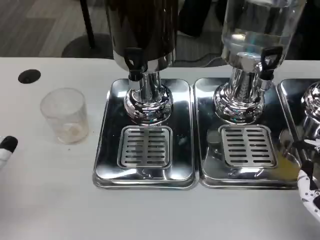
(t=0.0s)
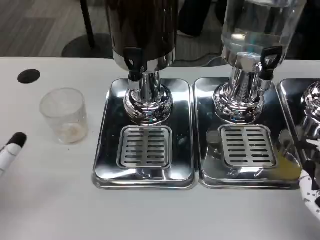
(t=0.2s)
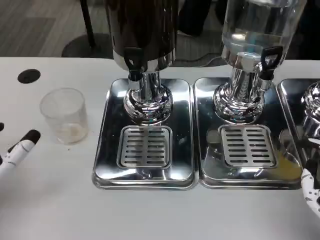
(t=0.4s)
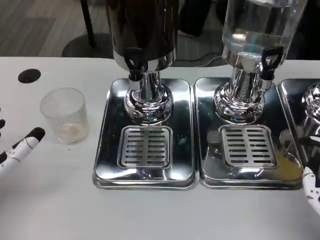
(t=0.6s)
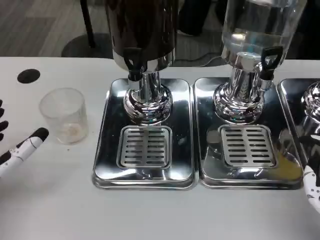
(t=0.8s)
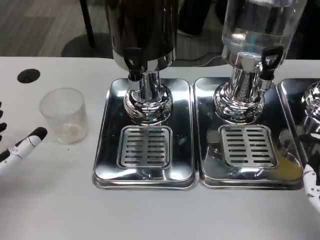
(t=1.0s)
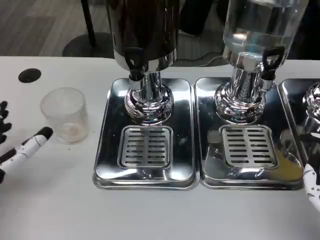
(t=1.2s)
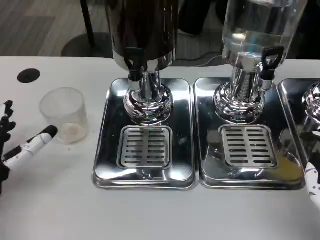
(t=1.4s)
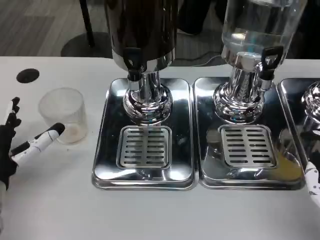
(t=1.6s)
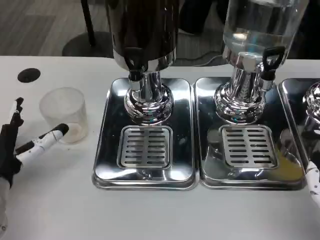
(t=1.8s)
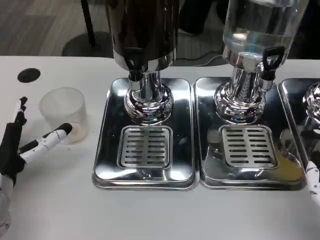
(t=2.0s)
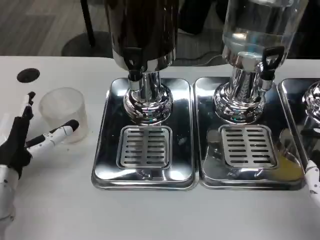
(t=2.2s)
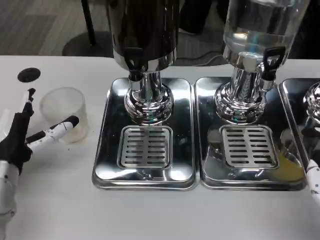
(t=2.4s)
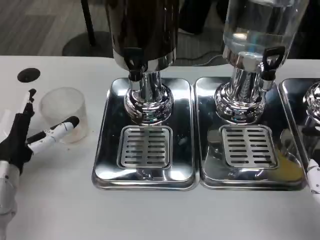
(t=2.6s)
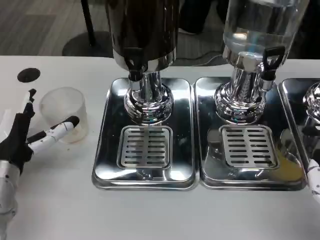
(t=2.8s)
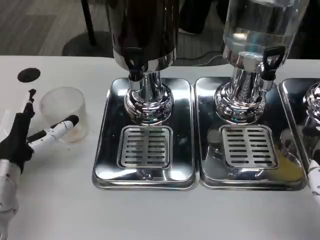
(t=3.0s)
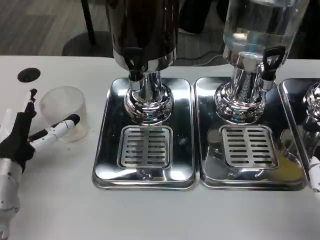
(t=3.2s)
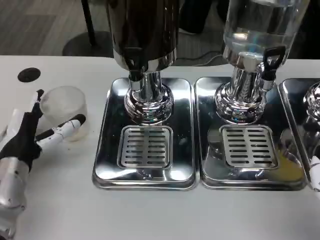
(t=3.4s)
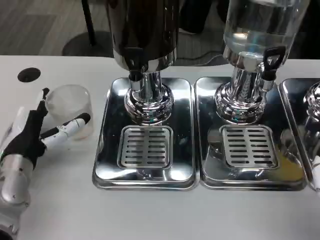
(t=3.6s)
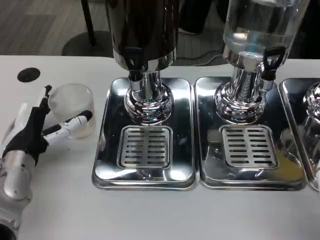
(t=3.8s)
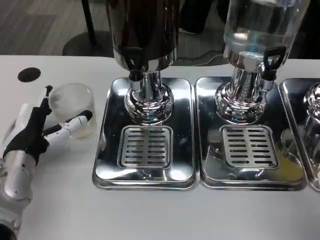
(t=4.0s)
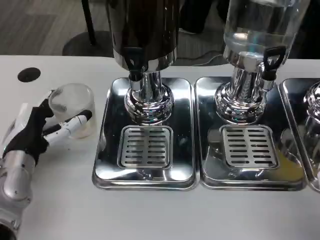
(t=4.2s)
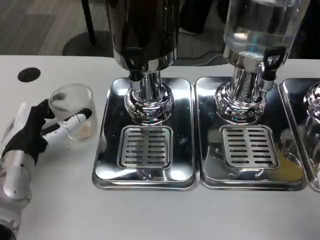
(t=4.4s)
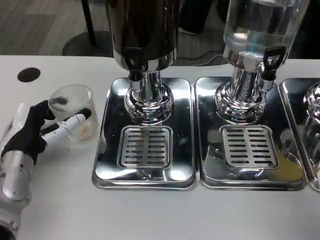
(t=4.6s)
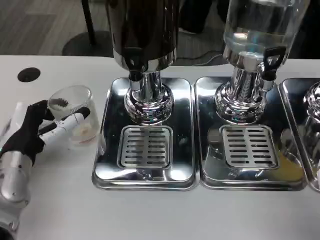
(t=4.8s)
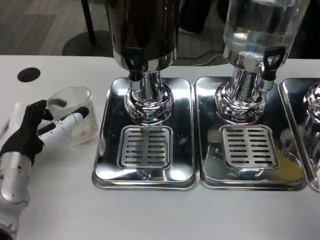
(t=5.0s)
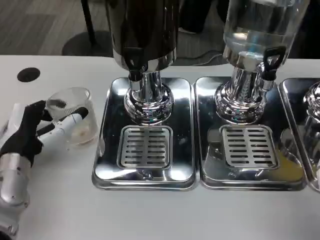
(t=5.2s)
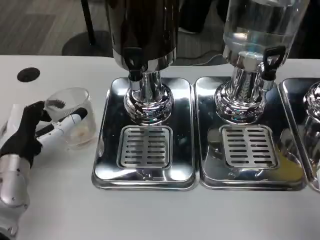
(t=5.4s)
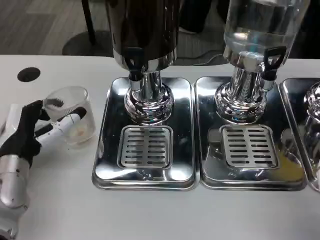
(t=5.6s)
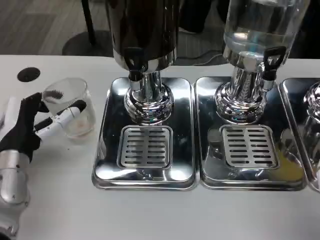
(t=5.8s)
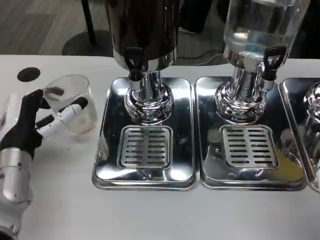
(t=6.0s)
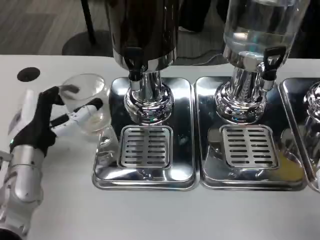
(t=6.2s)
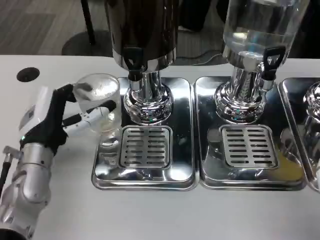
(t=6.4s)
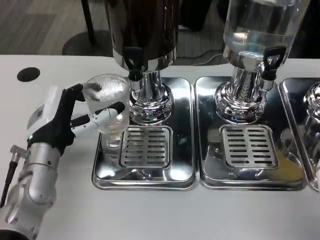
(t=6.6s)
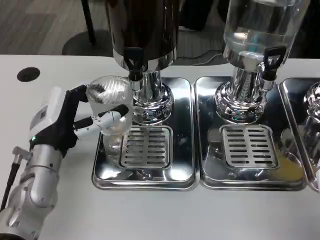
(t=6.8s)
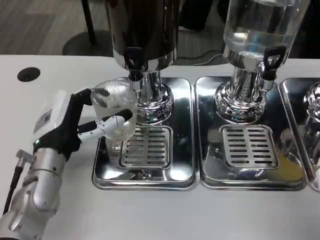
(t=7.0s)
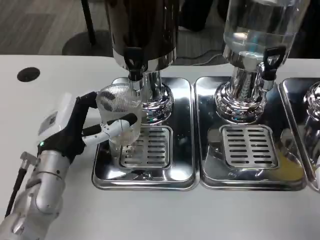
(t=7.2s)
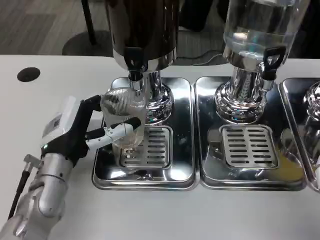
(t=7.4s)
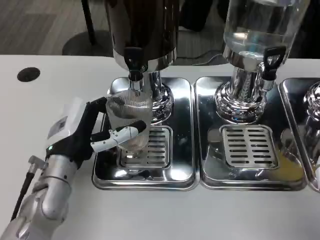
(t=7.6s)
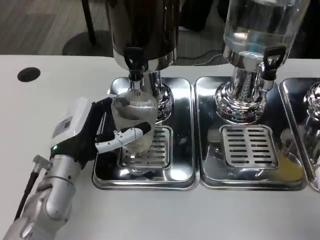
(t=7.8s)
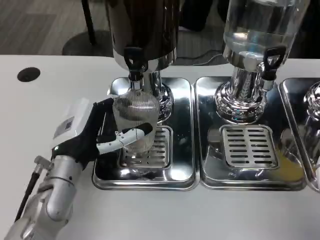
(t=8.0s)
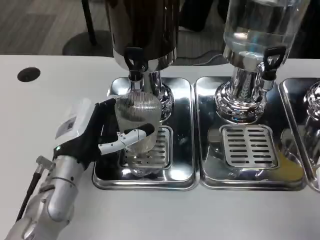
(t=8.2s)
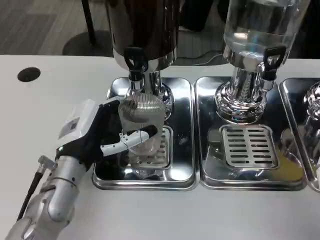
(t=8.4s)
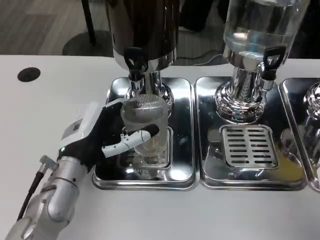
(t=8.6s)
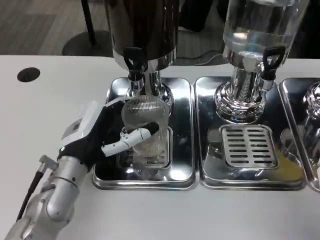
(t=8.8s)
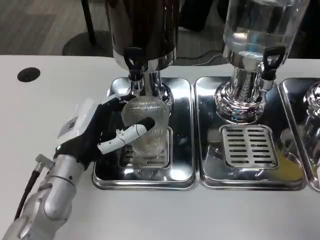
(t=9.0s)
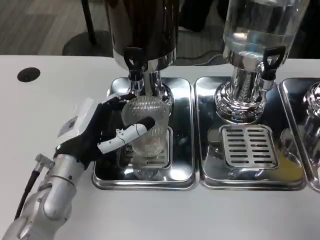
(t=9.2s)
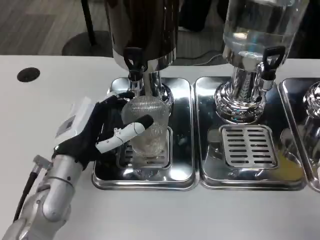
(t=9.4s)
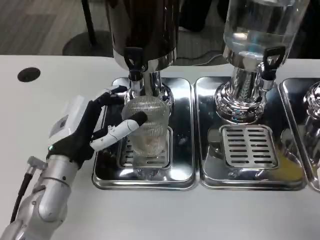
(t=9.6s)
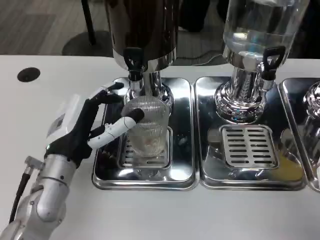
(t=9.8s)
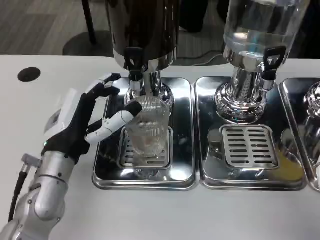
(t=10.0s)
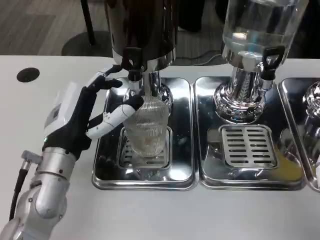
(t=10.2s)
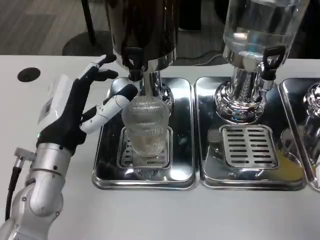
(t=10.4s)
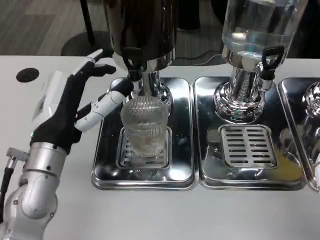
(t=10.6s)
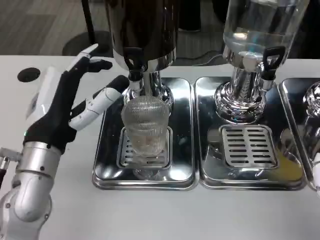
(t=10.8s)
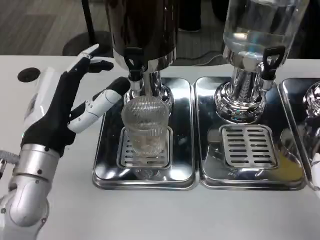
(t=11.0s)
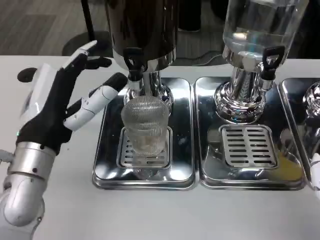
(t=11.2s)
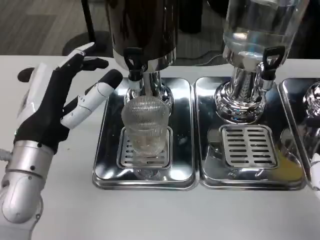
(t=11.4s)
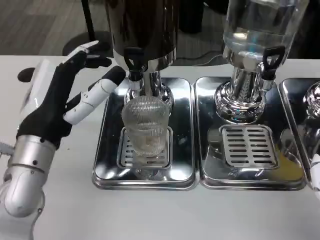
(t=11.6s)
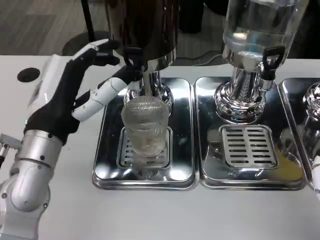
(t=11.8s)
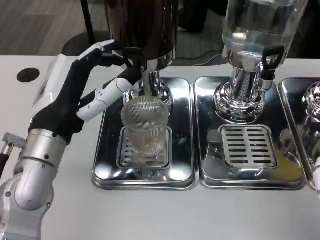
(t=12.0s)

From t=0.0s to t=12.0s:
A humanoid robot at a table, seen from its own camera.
Task of the whole recording: Grasp the cup under the faucet to collect the drink, then remove the cup.
From t=0.0s to t=1.6s: The left hand moves forward, approximately 5 cm.
From t=1.6s to t=6.0s: The hands stay close to where they were, moving slightly.
From t=6.0s to t=7.6s: The left hand heads to the right, covering roughly 5 cm.
From t=7.6s to t=10.4s: The hands move only a little.
From t=10.4s to t=12.0s: There are only small adjustments of the hands.

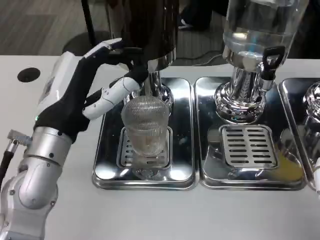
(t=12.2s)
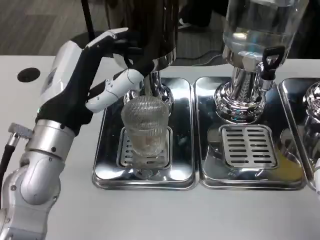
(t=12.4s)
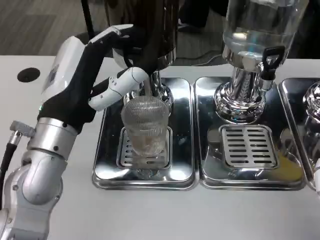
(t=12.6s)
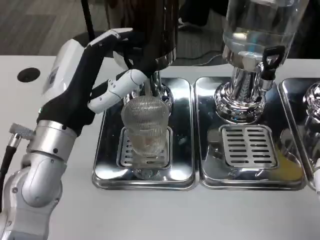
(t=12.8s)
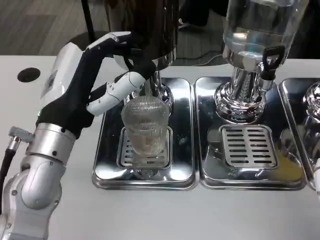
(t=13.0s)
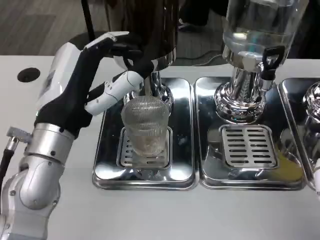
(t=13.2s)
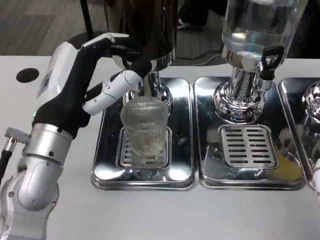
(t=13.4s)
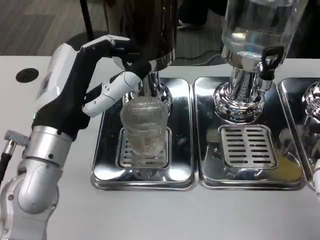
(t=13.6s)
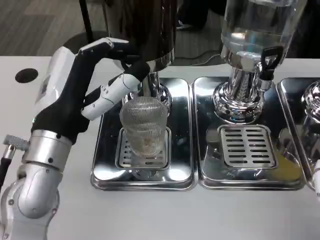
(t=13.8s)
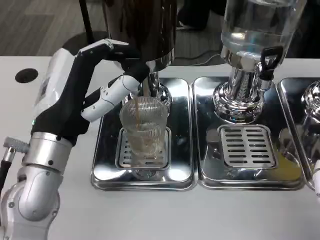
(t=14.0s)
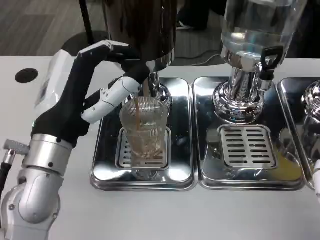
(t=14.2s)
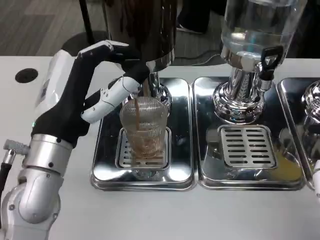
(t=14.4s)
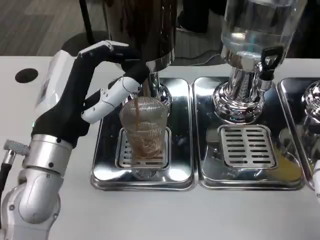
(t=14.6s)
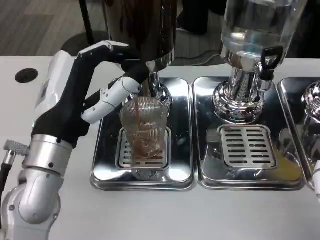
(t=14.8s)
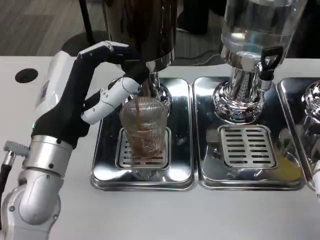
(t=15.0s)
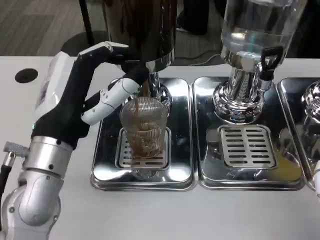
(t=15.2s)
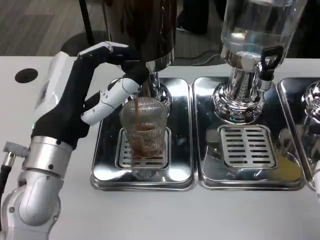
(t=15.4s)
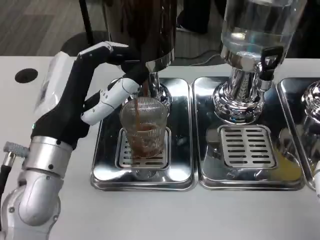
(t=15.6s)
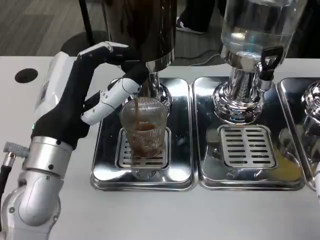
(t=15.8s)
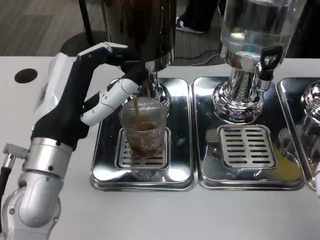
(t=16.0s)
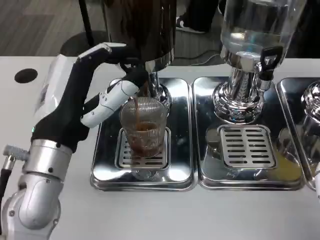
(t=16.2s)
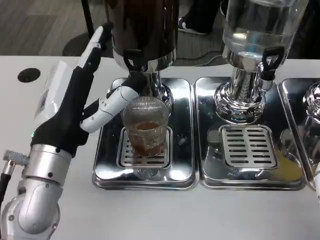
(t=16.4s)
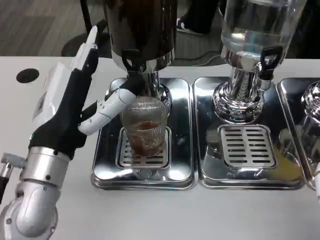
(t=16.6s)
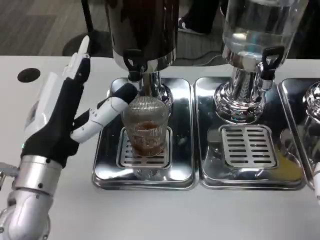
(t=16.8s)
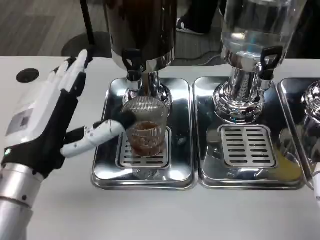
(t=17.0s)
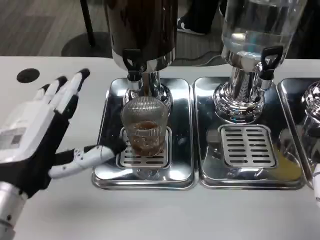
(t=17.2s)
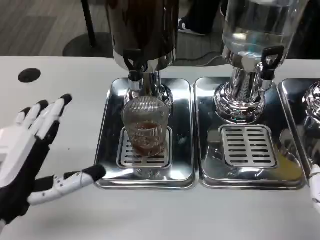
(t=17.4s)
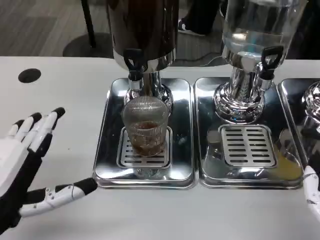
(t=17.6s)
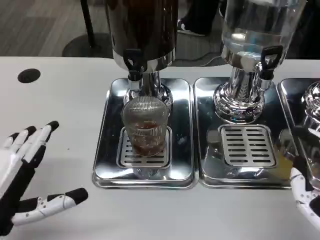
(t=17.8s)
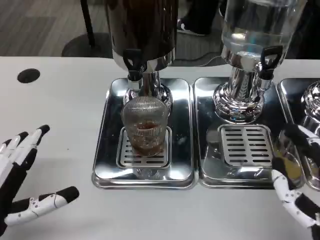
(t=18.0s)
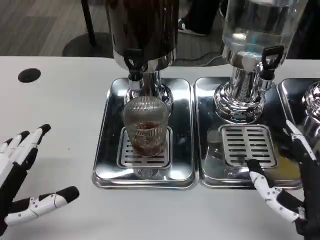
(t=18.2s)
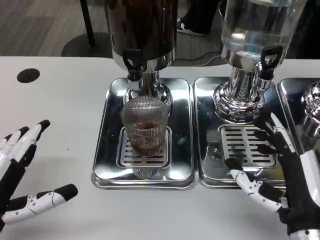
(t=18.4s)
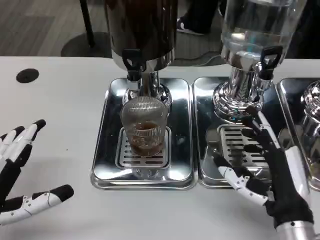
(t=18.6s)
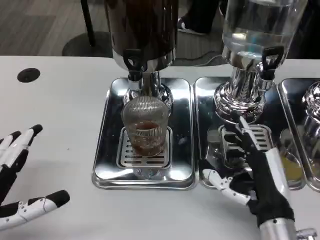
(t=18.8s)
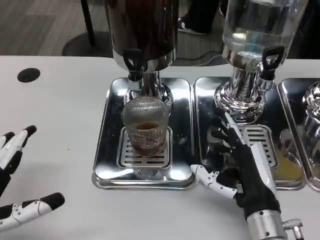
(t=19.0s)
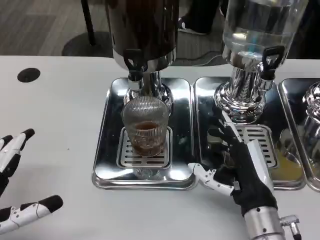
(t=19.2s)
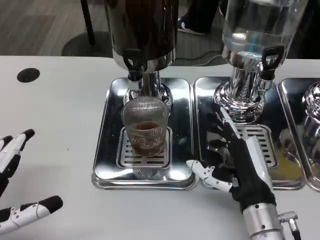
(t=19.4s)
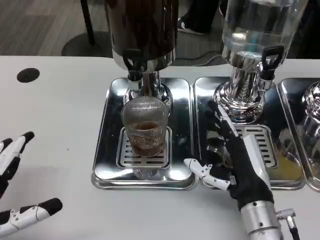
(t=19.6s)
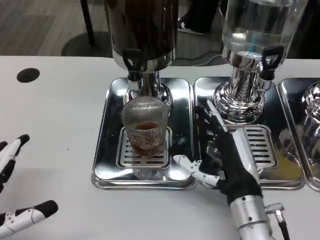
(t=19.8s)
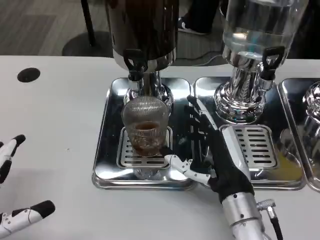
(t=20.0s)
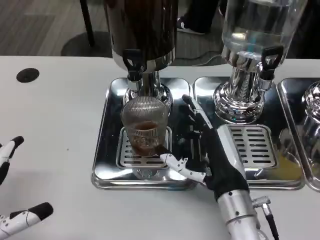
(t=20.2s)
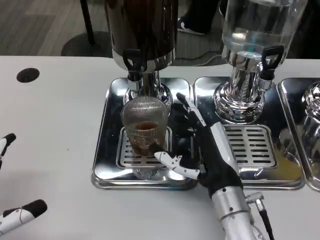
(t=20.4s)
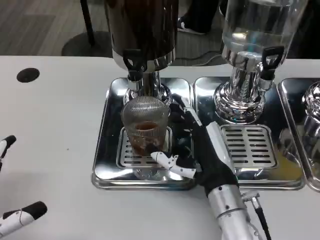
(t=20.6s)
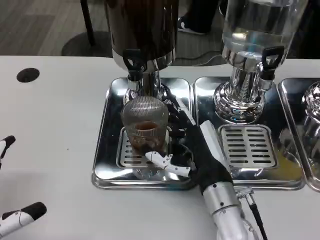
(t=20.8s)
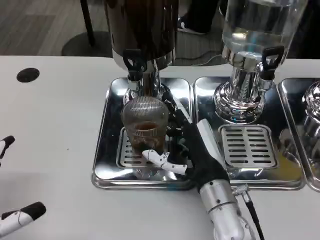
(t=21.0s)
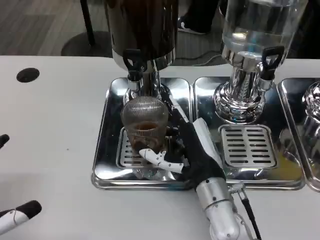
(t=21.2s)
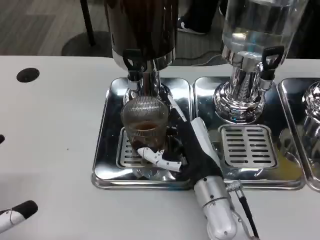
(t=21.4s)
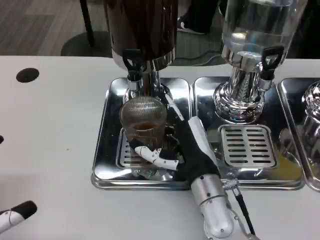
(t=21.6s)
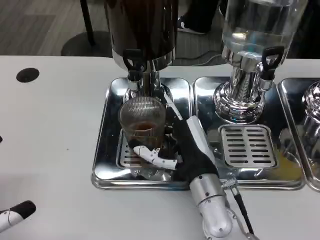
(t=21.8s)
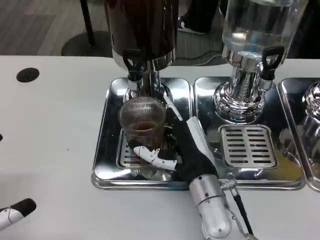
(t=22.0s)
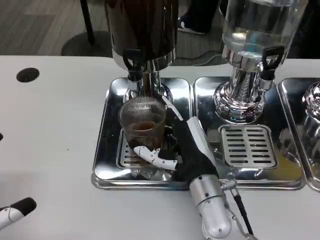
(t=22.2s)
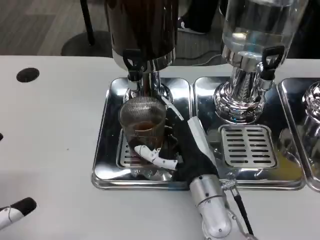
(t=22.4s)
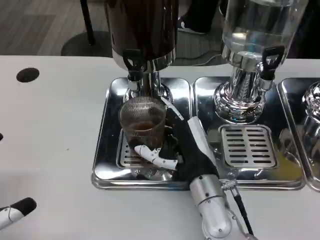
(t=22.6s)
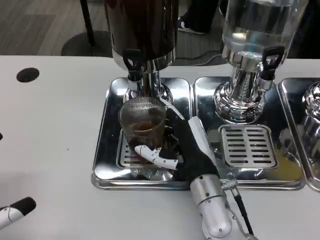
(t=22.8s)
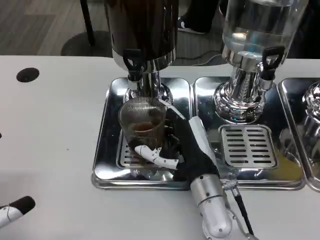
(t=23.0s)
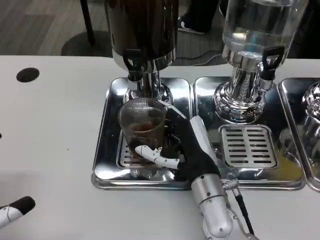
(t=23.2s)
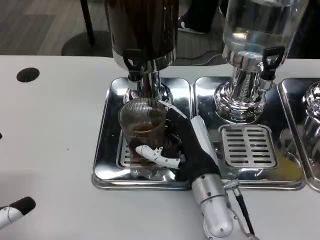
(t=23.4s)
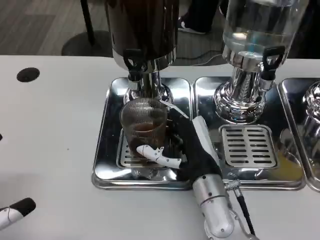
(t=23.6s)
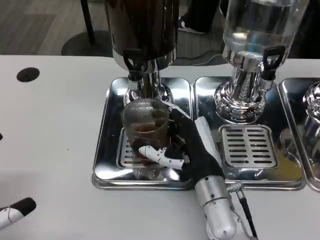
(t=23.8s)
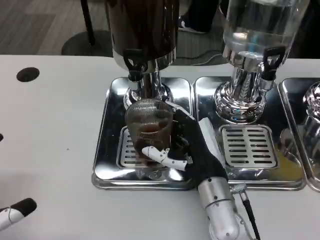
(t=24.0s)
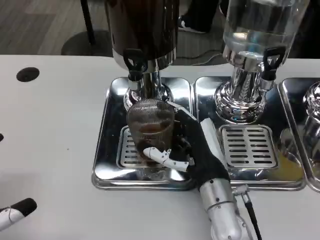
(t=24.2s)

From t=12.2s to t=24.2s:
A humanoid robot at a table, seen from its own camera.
Task of the whole recording: Grasp the cup under the faucet to collect the drink, then remove the cup.
From t=12.2s to t=13.8s: The hands move only a little.
From t=13.8s to t=15.2s: Both hands stay put.
From t=15.2s to t=16.6s: The hands stay close to where they were, moving slightly.
From t=16.6s to t=18.2s: The right hand moves approximately 5 cm, while the left hand is displaced to the left, backward and downward by about 15 cm.
From t=18.2s to t=19.8s: The right hand moves forward and to the left, about 10 cm.
From t=19.8s to t=21.2s: The right hand moves roughly 5 cm.
From t=21.2s to t=22.6s: The two hands keep their place.
From t=22.6s to t=24.2s: There are only small adjustments of the hands.
